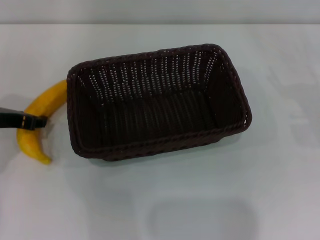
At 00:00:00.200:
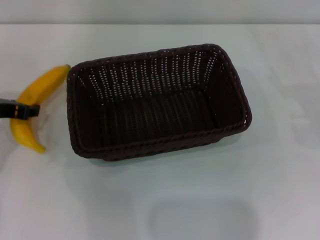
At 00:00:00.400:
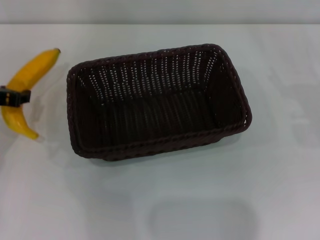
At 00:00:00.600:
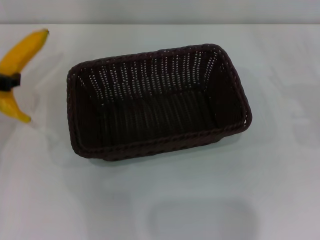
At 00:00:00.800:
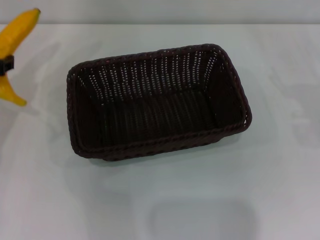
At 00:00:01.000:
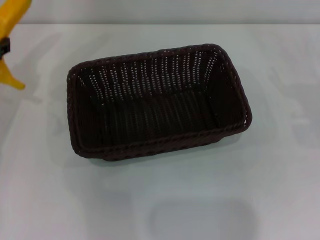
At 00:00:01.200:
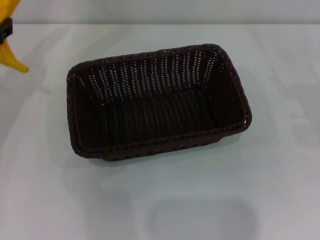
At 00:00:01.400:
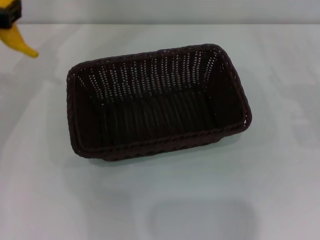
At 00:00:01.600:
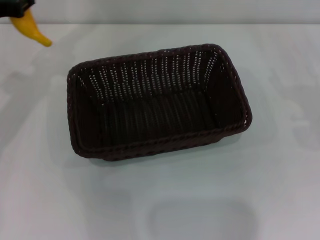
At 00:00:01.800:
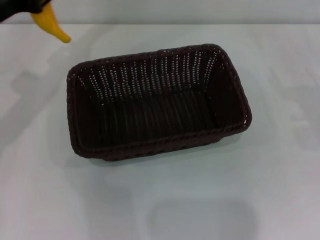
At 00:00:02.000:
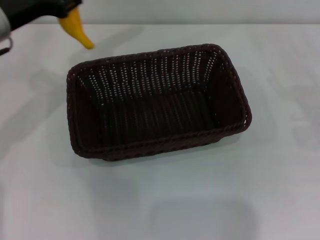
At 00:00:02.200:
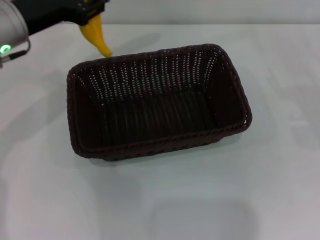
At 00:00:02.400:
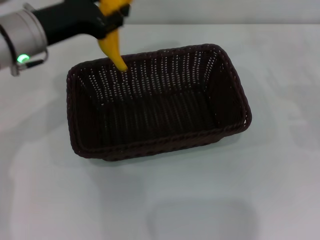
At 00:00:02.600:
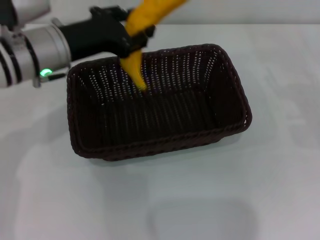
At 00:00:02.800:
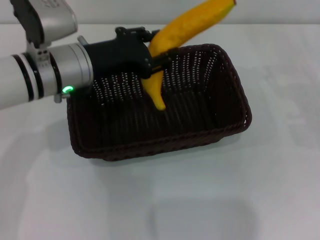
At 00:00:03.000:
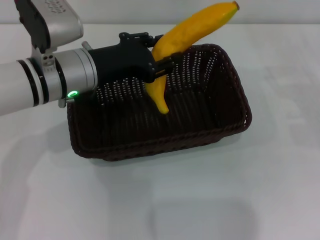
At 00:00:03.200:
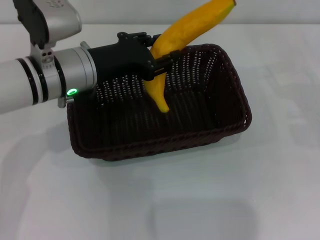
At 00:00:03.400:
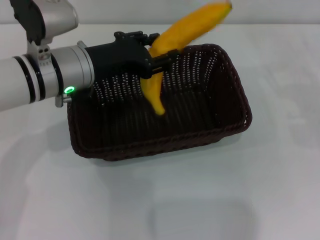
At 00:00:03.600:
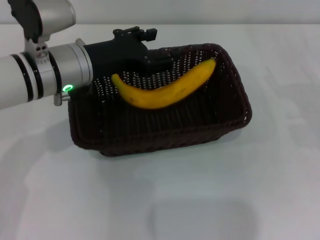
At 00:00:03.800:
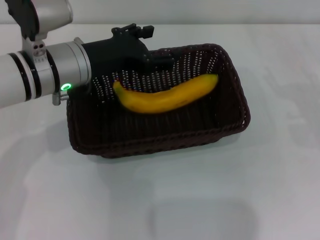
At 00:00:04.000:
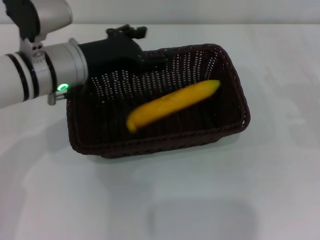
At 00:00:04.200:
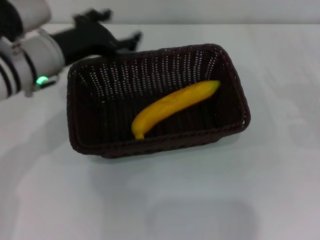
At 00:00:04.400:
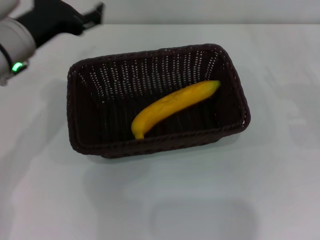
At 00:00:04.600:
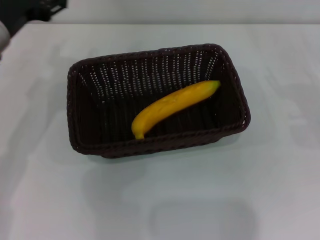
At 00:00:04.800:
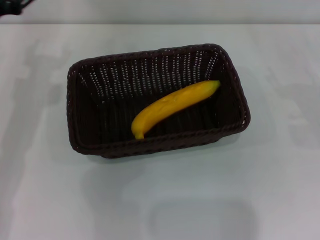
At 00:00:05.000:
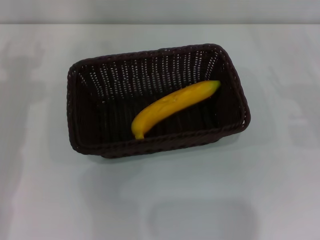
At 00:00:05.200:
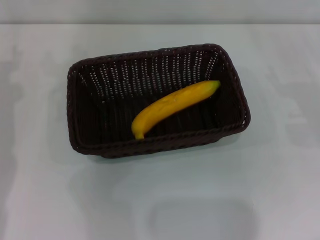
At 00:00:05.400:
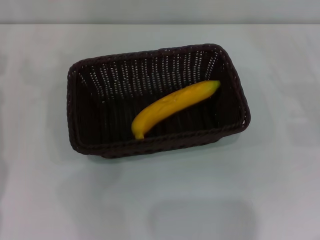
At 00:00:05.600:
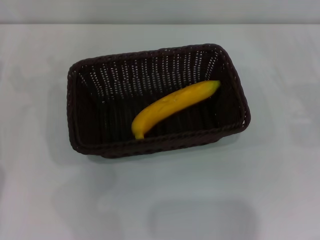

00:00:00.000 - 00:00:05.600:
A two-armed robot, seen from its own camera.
Step, 00:00:00.400 - 00:00:03.400: Place the banana into the dark basket with the left gripper.
00:00:00.000 - 00:00:01.400: The left gripper shifts some 5 cm upward.
00:00:01.400 - 00:00:02.800: The left gripper heads to the right, covering about 15 cm.
00:00:02.800 - 00:00:04.200: The left gripper opens its fingers.
00:00:04.200 - 00:00:05.600: The left gripper heads to the left, covering about 15 cm.
